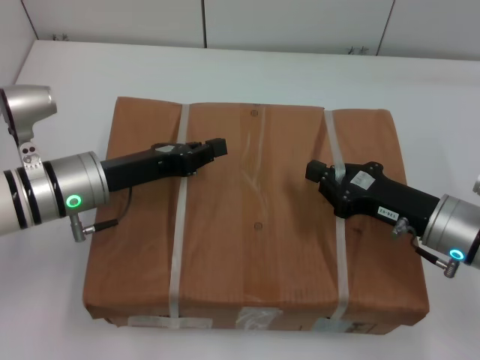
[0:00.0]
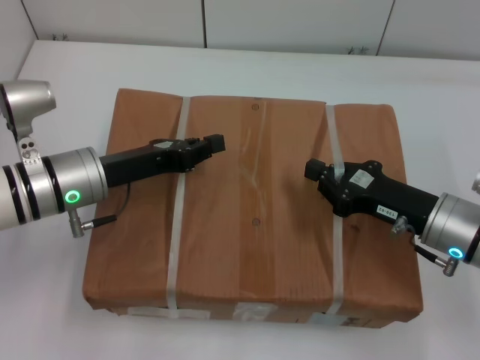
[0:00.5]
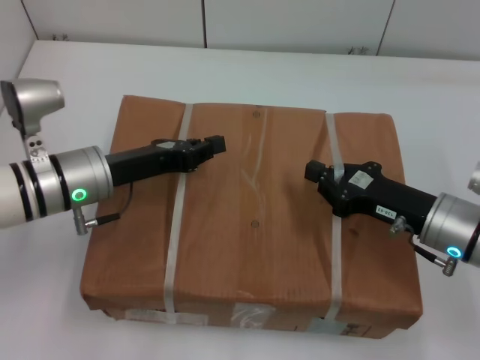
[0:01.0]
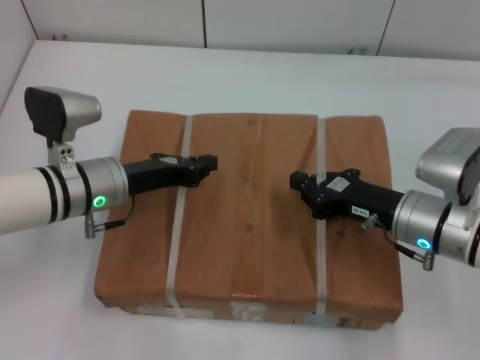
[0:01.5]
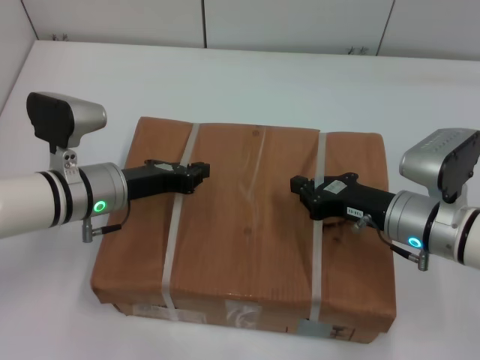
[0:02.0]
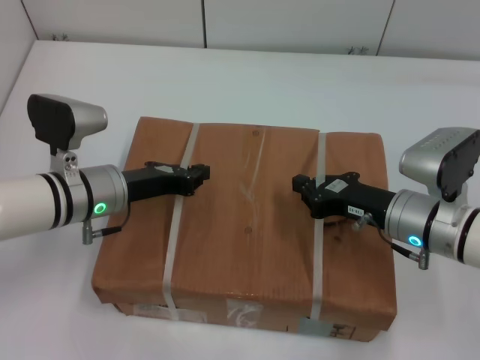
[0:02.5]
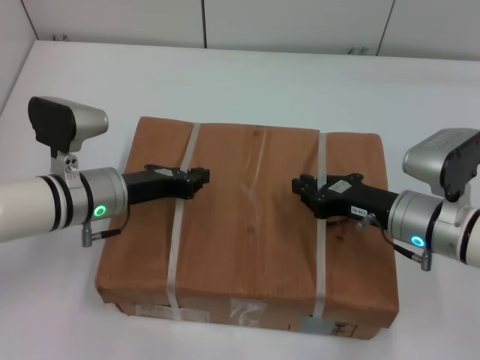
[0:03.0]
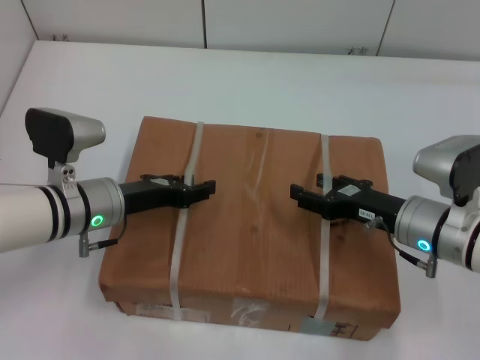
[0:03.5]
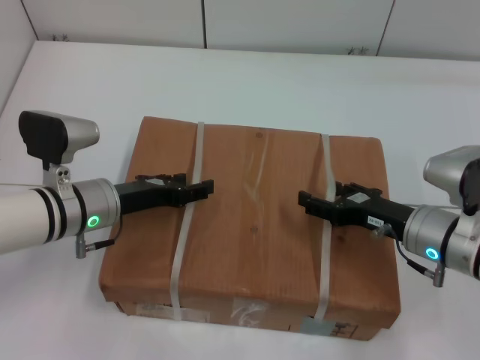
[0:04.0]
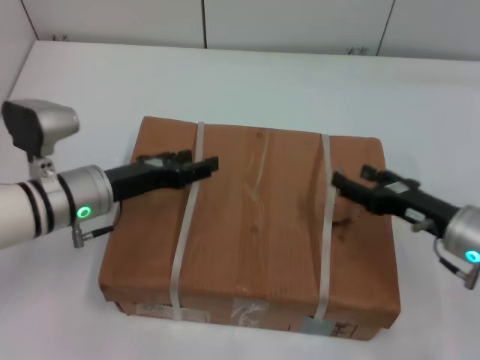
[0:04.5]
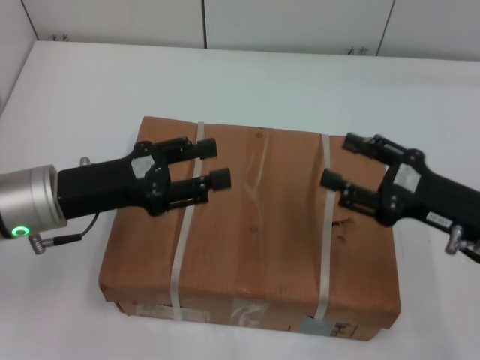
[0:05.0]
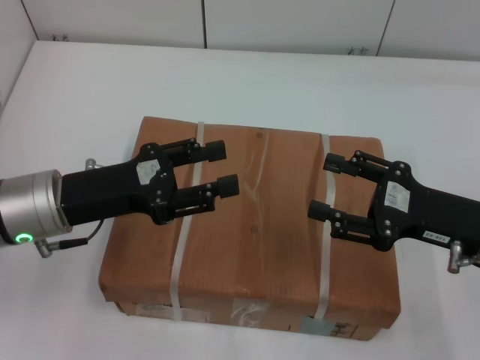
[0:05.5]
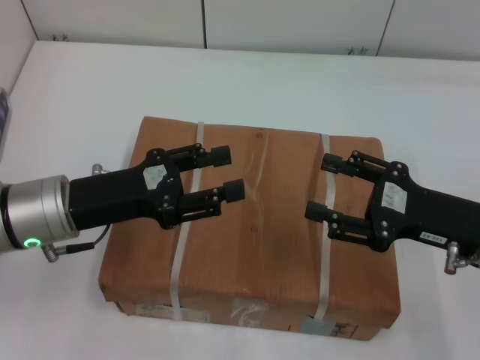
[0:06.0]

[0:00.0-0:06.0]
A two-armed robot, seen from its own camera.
Task of the whole recording: place the box on the table with both arms.
Step, 0:00.0 to 0:02.0: Place the box on the table with left gripper.
Step, 0:00.0 to 0:02.0: Place the box on the table with right gripper.
Step, 0:02.5 to 0:03.5: Loosen the box on the table with left gripper.
Step, 0:02.5 to 0:03.5: Loosen the box on the table with right gripper.
0:02.0 to 0:04.0: The left gripper opens its fingers; the right gripper opens its fingers.
0:04.0 to 0:06.0: The left gripper shifts some 10 cm upward and backward. The right gripper moves upward, approximately 5 cm.
